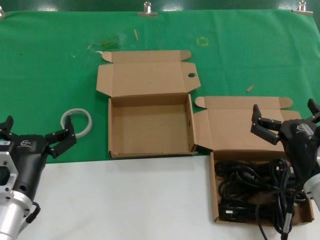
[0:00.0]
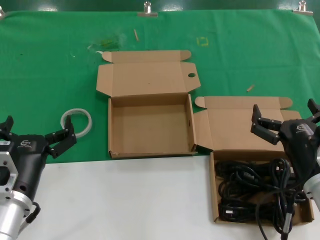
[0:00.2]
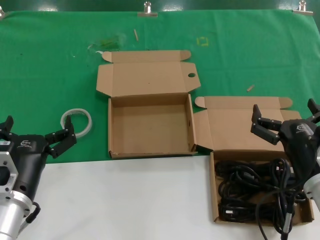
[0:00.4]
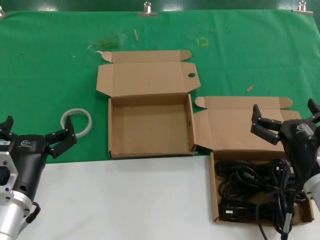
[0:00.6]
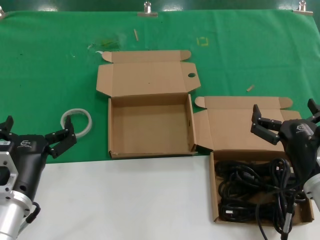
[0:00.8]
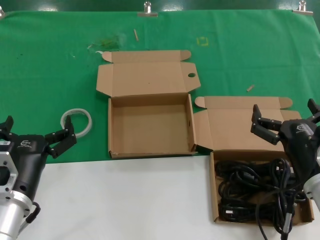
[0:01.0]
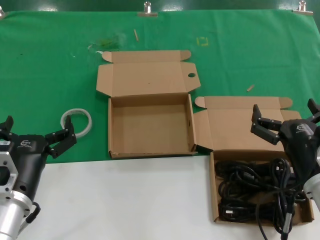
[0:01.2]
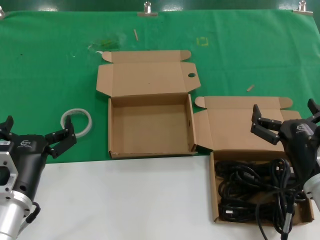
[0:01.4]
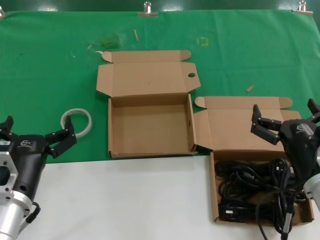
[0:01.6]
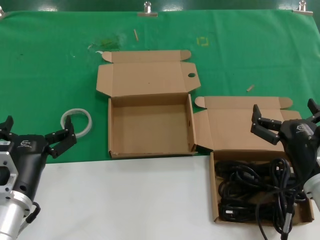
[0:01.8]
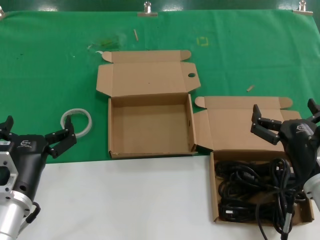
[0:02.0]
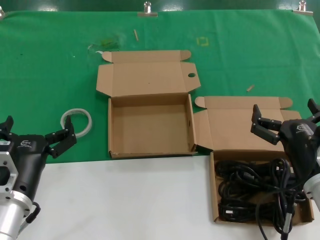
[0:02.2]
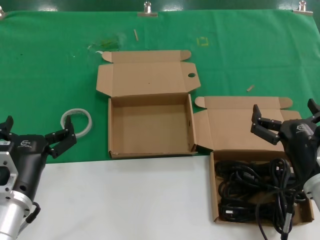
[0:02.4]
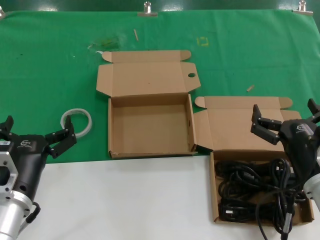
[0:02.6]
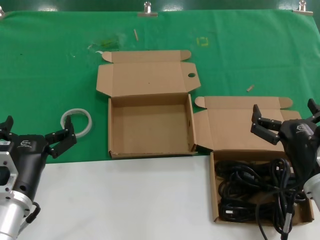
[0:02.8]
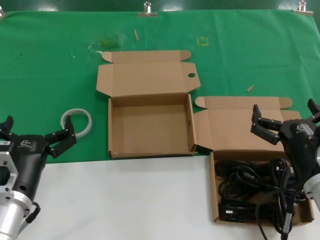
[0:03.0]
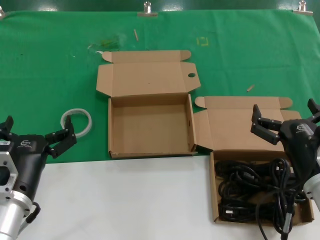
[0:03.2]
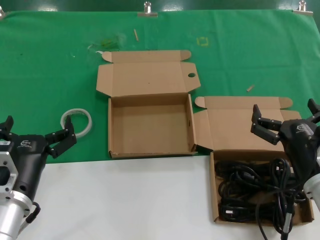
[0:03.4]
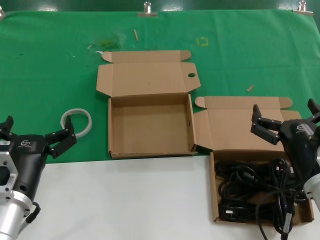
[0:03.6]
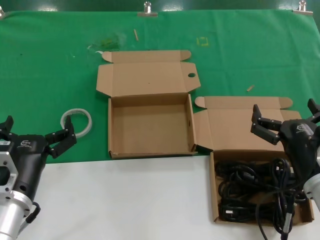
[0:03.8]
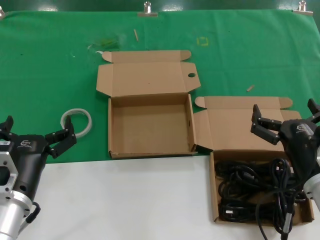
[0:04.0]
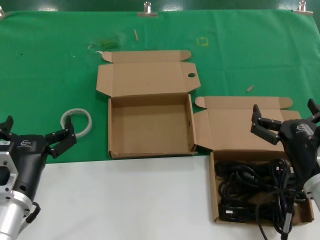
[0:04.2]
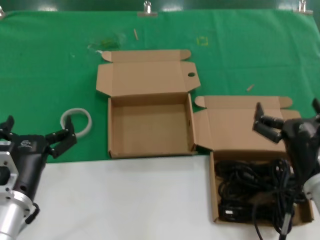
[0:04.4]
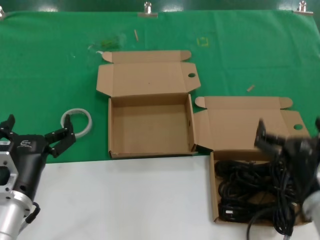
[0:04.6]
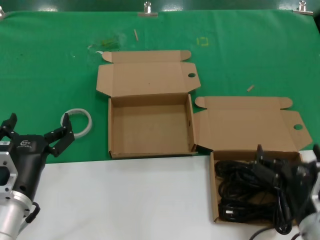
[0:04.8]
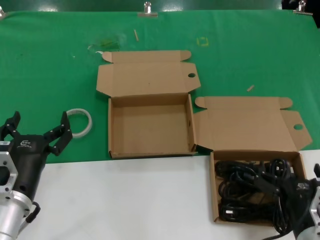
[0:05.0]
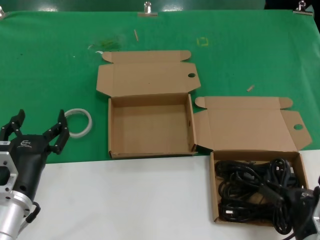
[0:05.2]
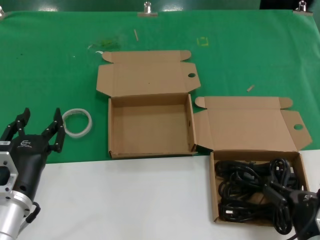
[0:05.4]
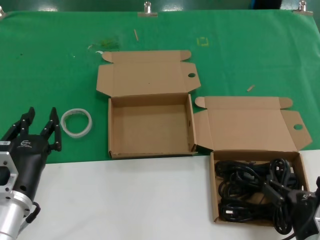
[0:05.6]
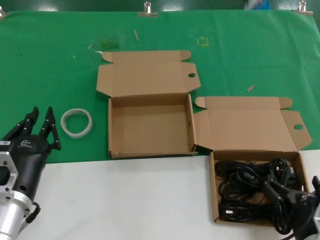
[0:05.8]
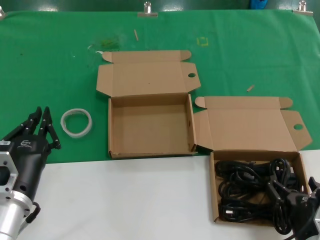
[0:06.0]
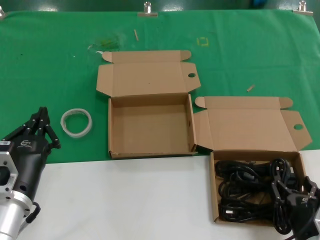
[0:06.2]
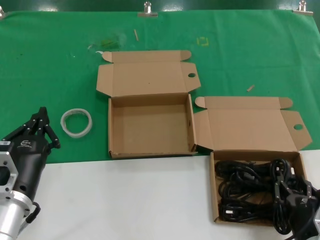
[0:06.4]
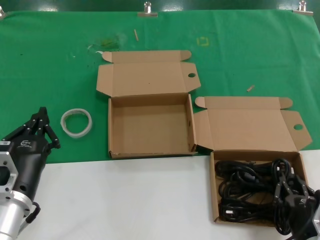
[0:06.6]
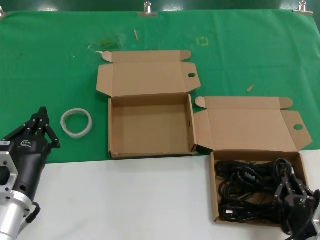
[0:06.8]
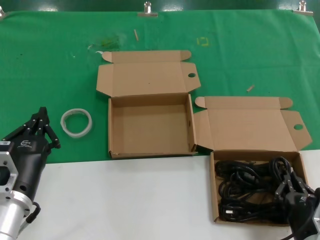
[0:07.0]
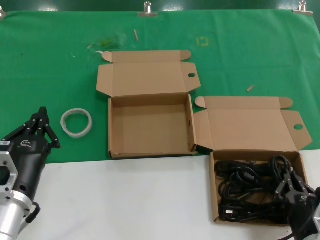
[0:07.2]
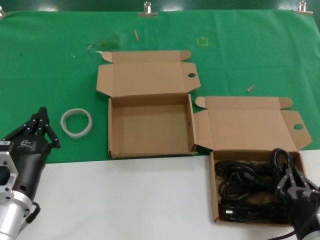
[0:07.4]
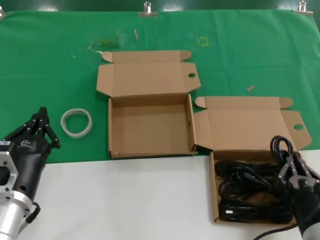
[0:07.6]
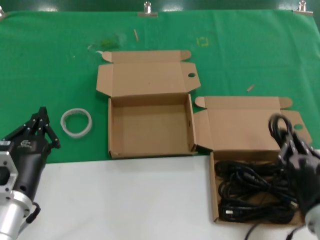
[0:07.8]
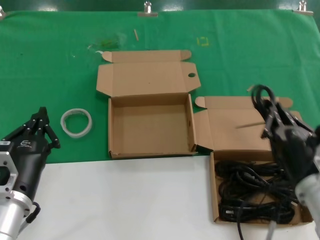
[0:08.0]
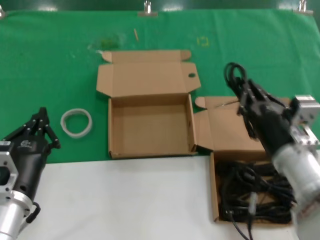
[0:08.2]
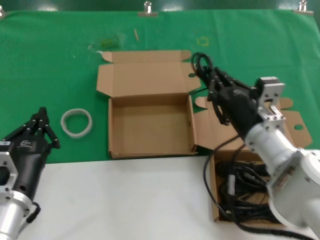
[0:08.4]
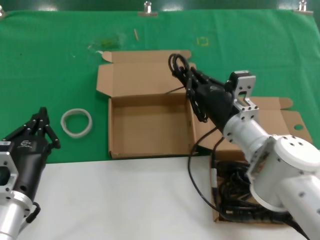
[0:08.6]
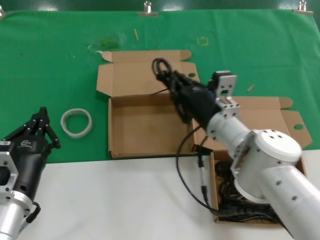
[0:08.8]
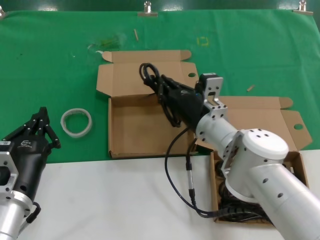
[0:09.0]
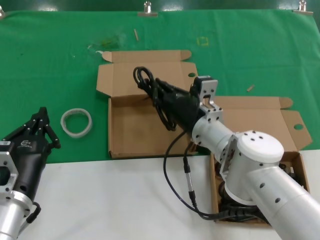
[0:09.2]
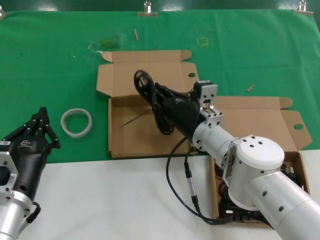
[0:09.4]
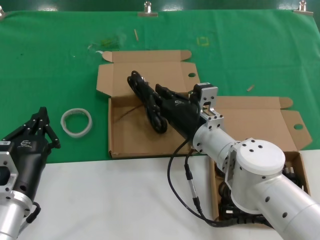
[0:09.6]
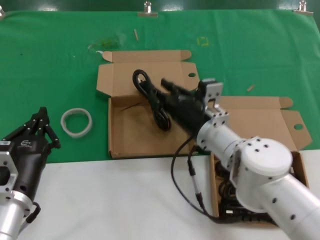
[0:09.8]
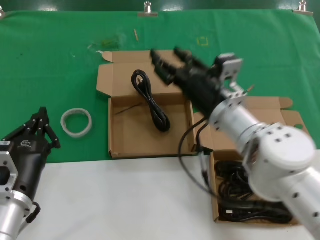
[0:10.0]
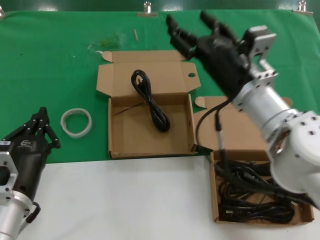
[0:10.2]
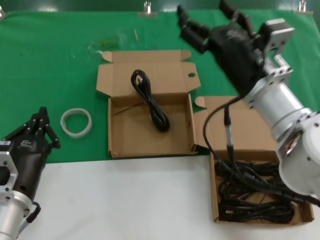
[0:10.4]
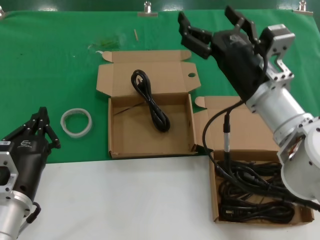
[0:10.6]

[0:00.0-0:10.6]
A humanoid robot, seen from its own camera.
Task of the whole recording: Pick up the power cord from the box containing it and place it in another box.
Step, 0:00.0 to 0:07.2: Grasp the data cable.
Step, 0:07.4 to 0:09.8: Place the data cable in the another box.
0:00.0 to 0:03.0: Both hands stay about where they are.
0:03.0 to 0:04.6: The hands move only a little.
0:04.6 to 0:06.0: The right hand goes approximately 5 cm downward.
0:06.0 to 0:07.6: The hands move only a little.
0:07.6 to 0:09.0: The right hand shifts some 25 cm forward and to the left.
0:09.0 to 0:10.6: The right hand moves upward, backward and to the right, some 15 cm.

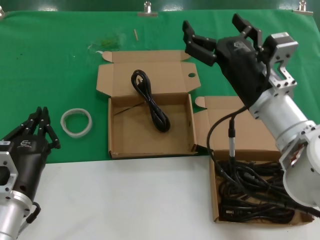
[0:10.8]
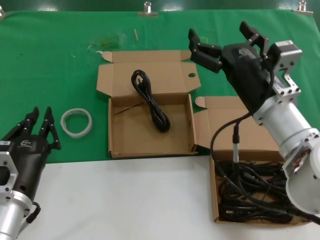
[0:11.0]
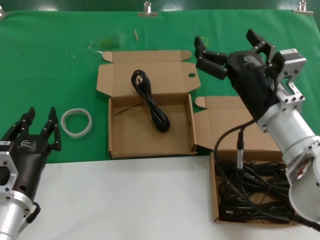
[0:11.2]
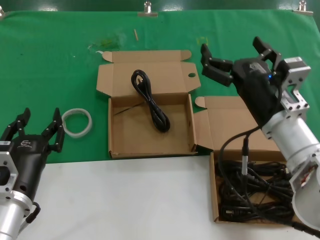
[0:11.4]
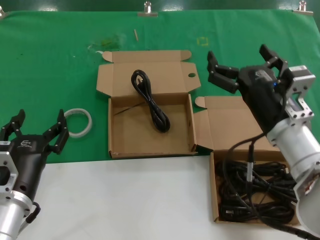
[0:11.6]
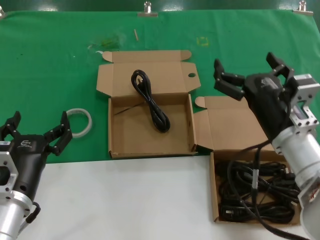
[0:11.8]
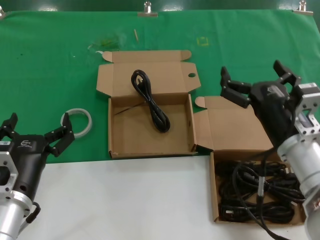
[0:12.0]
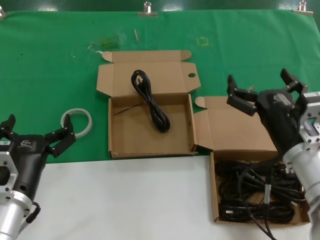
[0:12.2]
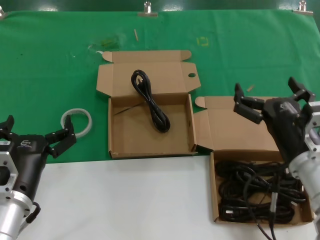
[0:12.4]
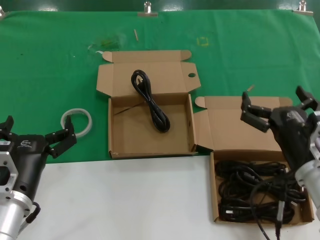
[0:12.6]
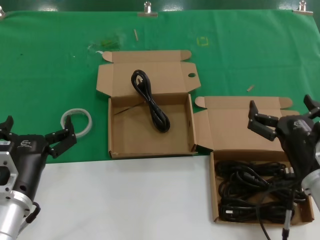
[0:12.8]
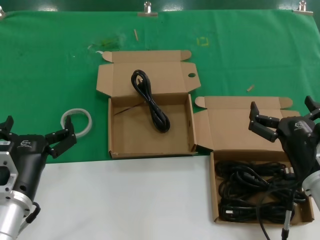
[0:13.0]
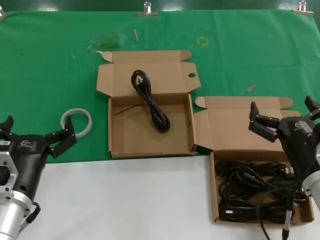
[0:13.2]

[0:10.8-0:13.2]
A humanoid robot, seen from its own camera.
Task of the whole recording: Pick up the power cord from the box containing it and place it in another box.
0:10.8 to 0:12.0: The right hand moves downward, approximately 5 cm.
0:12.0 to 0:13.2: The right hand changes place by about 5 cm.
